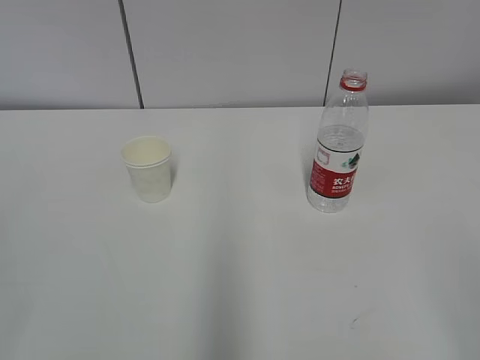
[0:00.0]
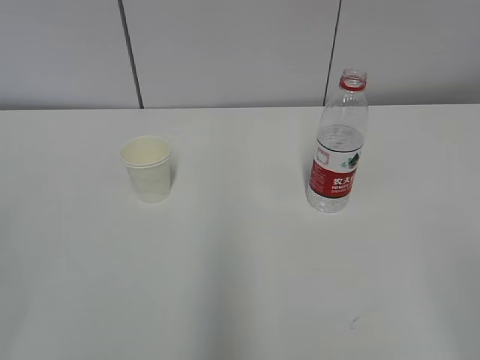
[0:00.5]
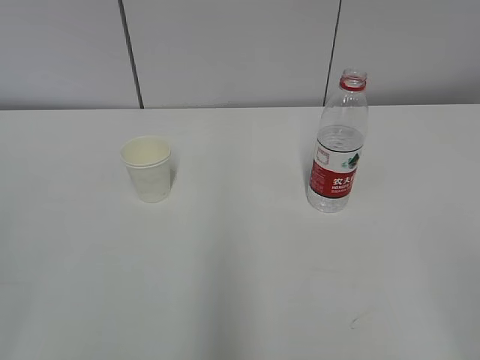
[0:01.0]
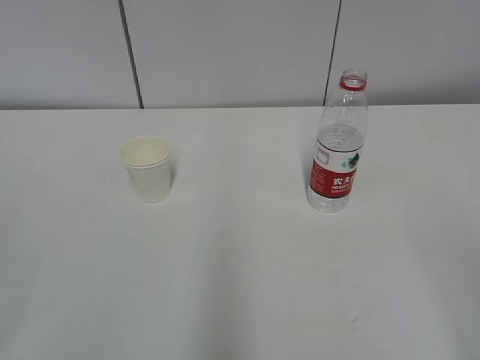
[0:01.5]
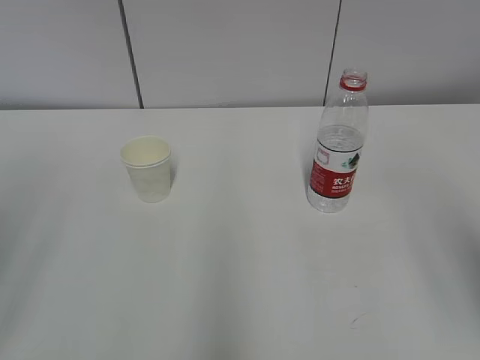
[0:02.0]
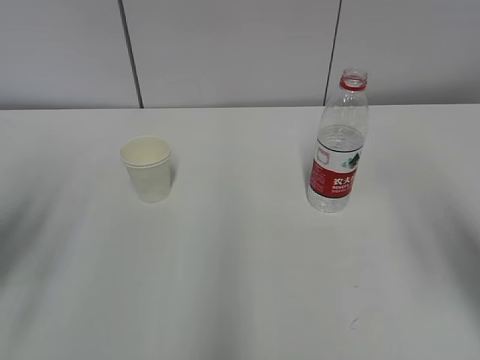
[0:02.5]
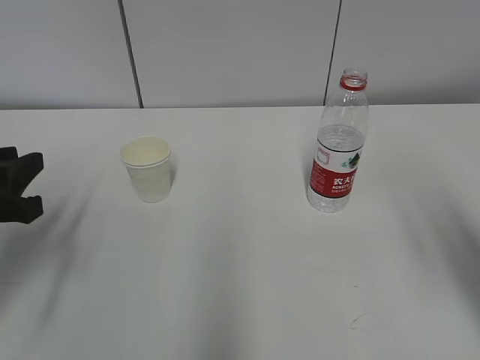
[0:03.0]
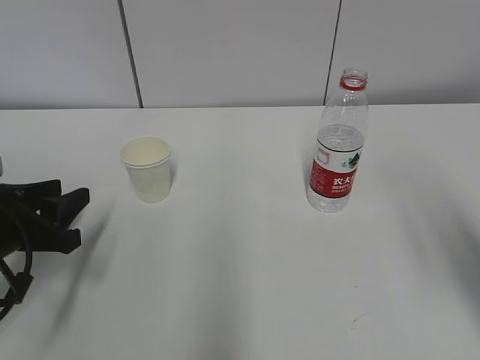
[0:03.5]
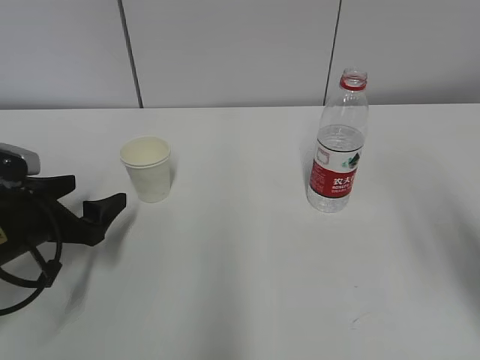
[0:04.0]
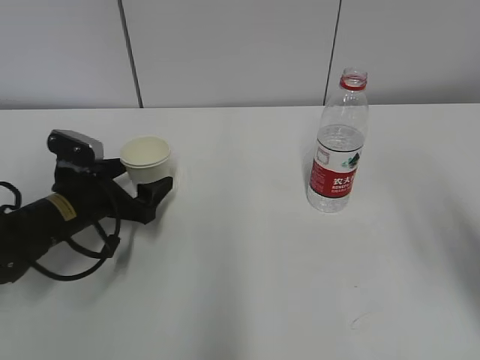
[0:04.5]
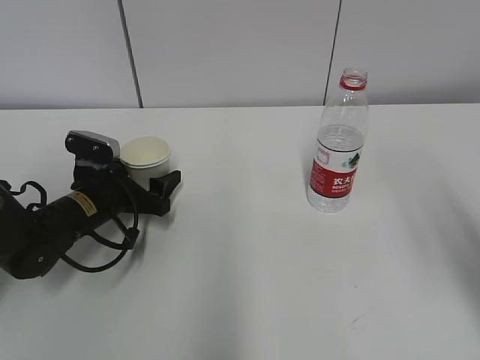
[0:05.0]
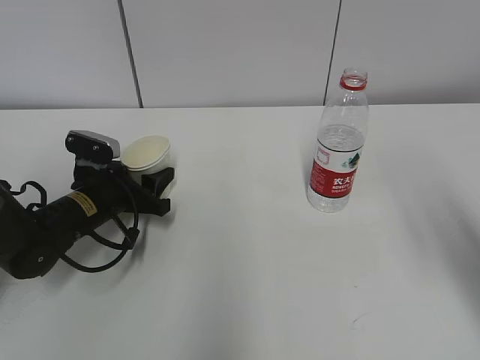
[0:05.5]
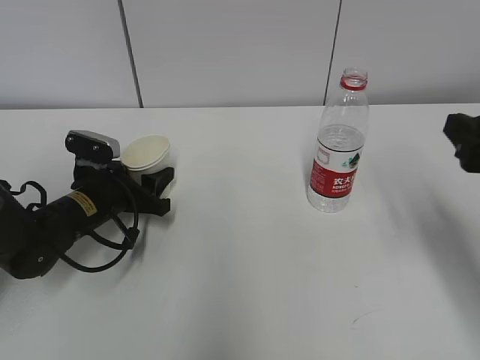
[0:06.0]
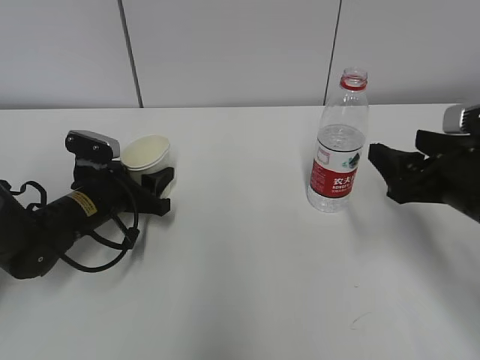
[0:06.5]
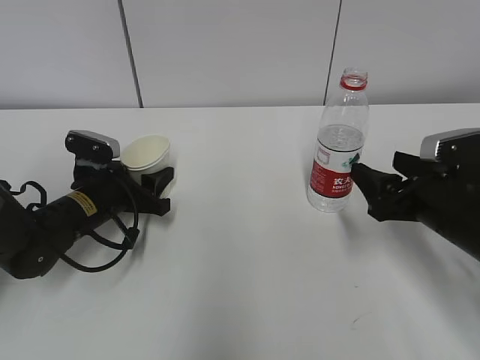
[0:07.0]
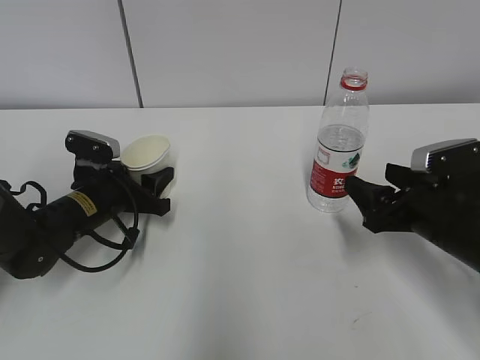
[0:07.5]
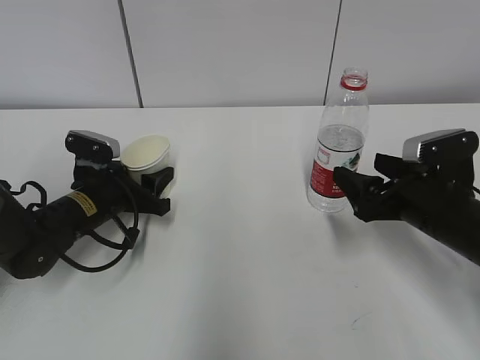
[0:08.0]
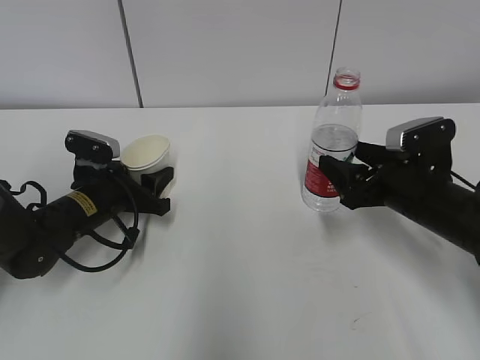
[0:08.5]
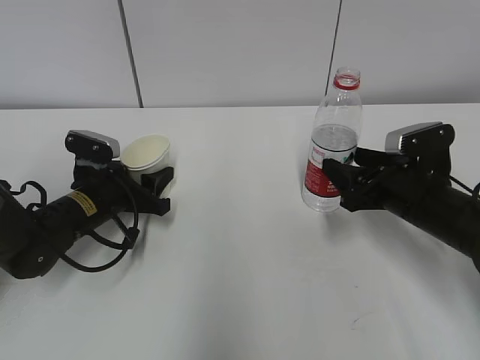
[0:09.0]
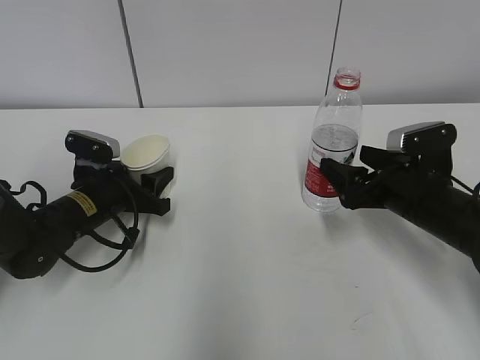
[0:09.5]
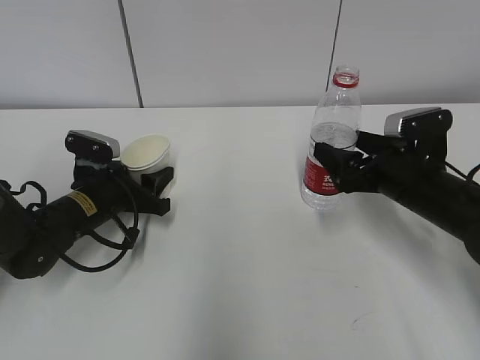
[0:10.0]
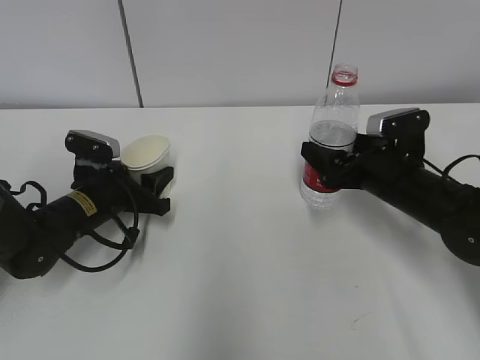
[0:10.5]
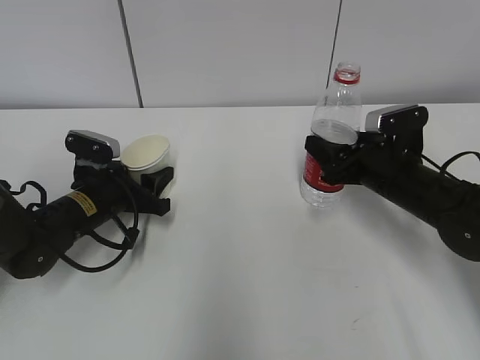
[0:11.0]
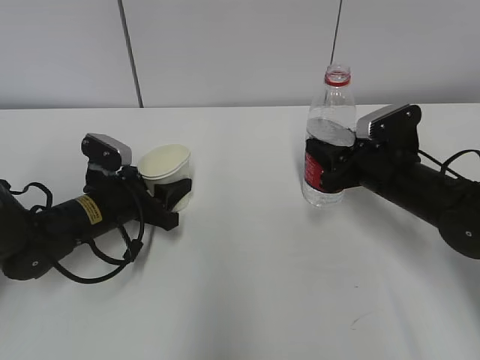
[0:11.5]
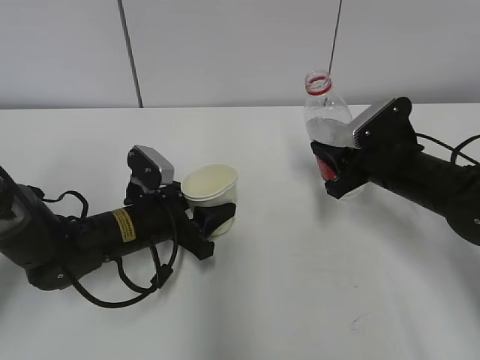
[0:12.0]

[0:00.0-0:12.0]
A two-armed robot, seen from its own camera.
Step, 0:00.0 to 0:09.0: Grab the paper cup with the left hand.
0:02.0 to 0:04.0: The left gripper is displaced downward and forward by approximately 30 cm, and opens up.
0:04.0 to 0:06.0: The right gripper travels forward and downward by about 10 cm. The left gripper moves forward and to the right, some 10 cm, and closes.
0:06.0 to 0:08.0: The right gripper is displaced downward and forward by some 15 cm.
0:08.0 to 0:10.0: The grippers move only a little.
0:10.0 to 0:12.0: The right gripper closes up. The left gripper heads to the right, covering some 5 cm.

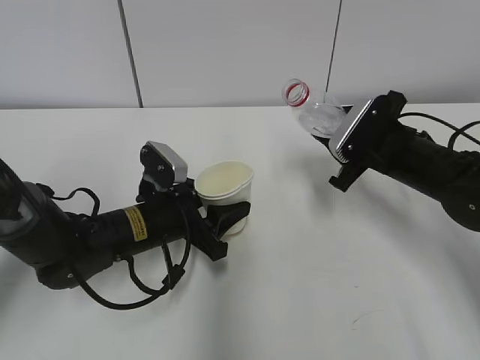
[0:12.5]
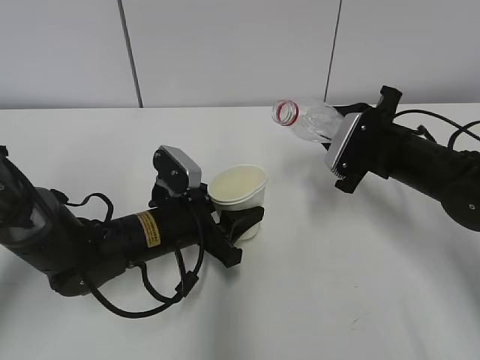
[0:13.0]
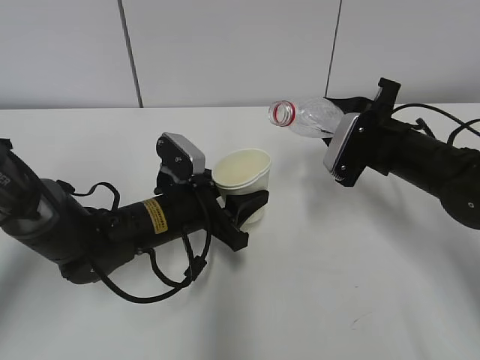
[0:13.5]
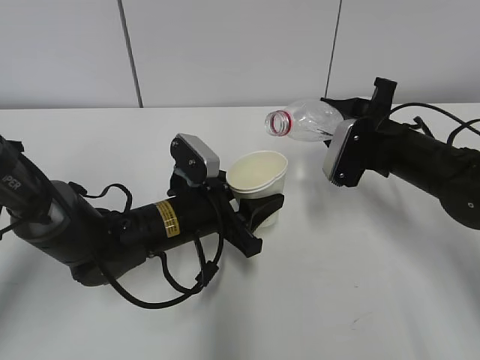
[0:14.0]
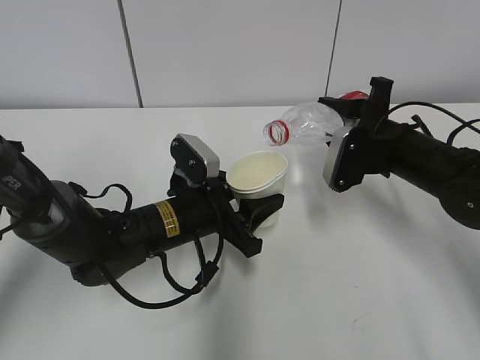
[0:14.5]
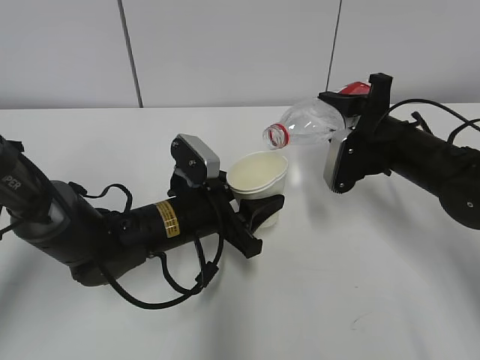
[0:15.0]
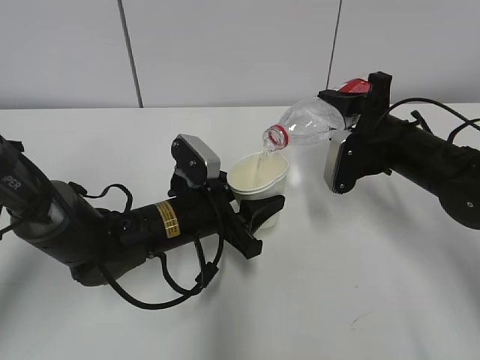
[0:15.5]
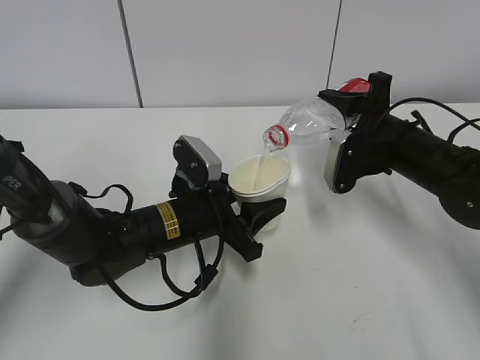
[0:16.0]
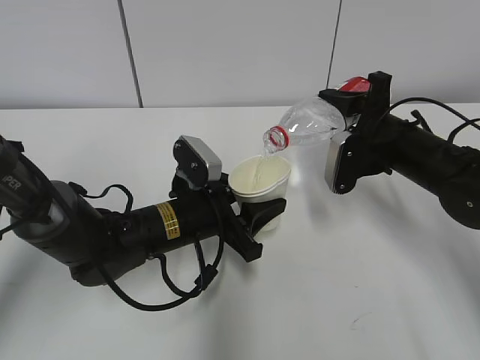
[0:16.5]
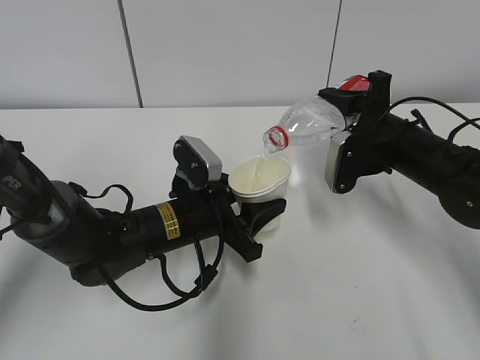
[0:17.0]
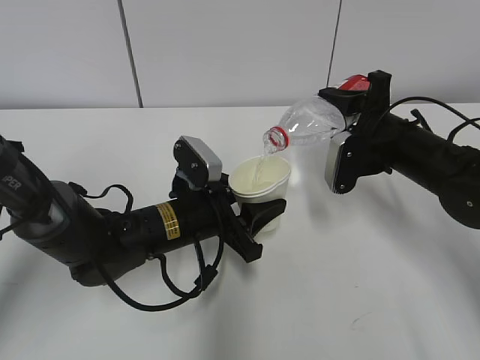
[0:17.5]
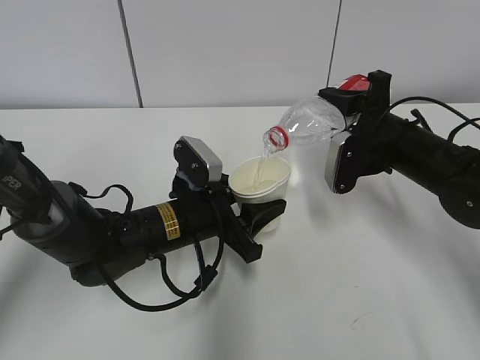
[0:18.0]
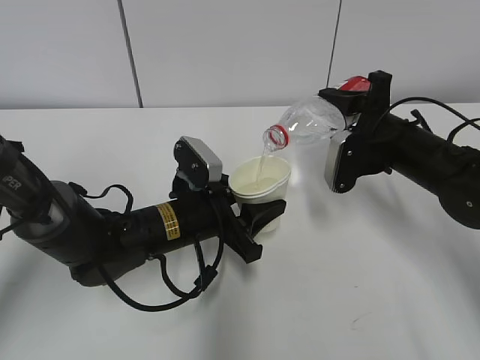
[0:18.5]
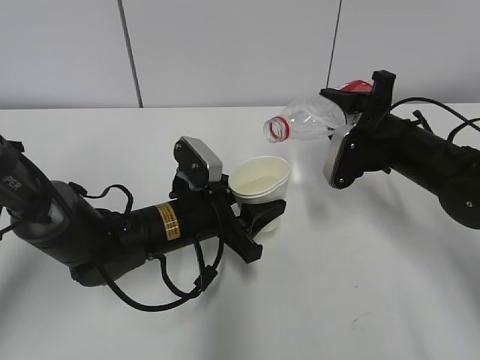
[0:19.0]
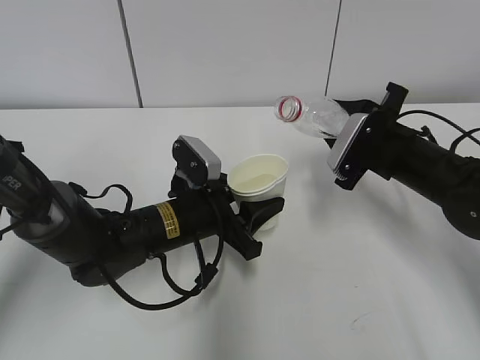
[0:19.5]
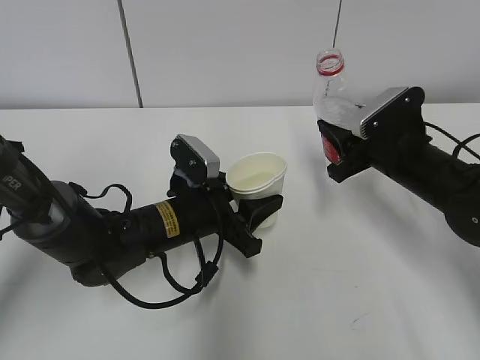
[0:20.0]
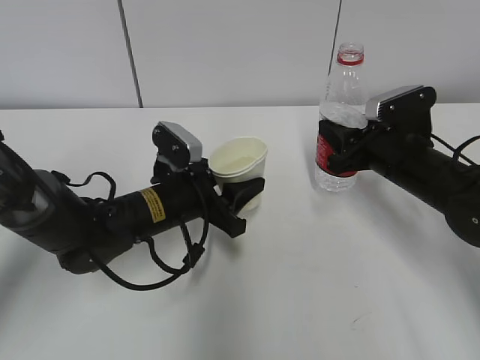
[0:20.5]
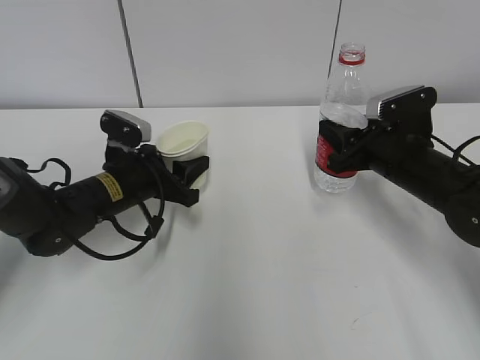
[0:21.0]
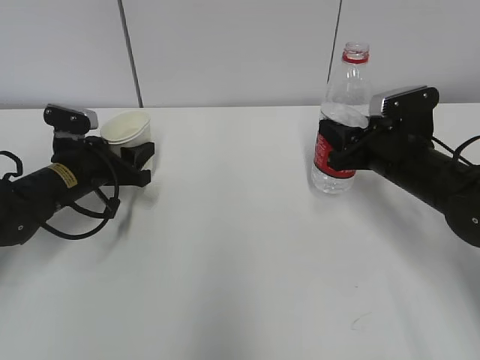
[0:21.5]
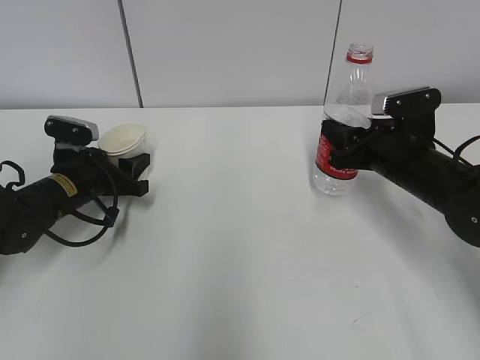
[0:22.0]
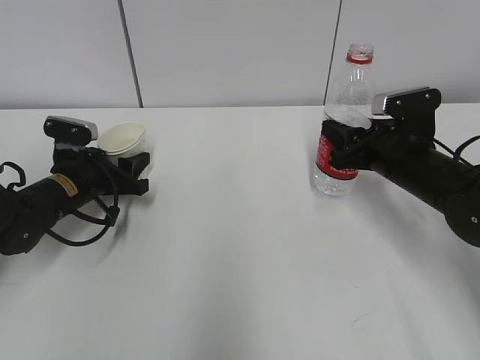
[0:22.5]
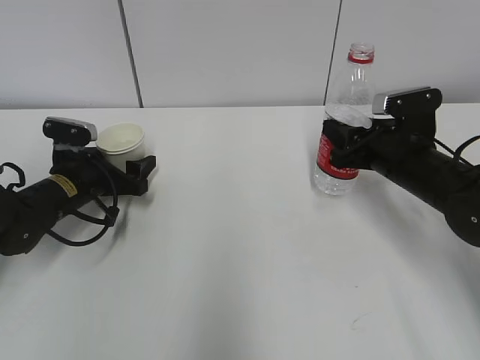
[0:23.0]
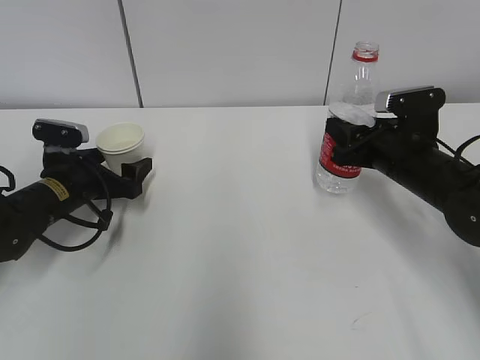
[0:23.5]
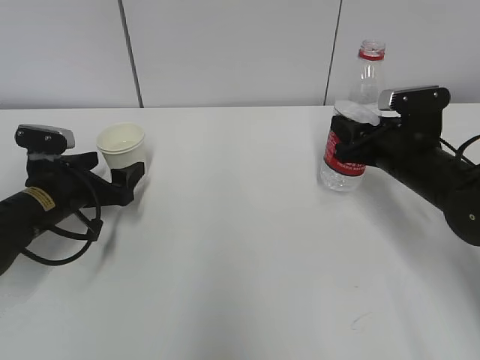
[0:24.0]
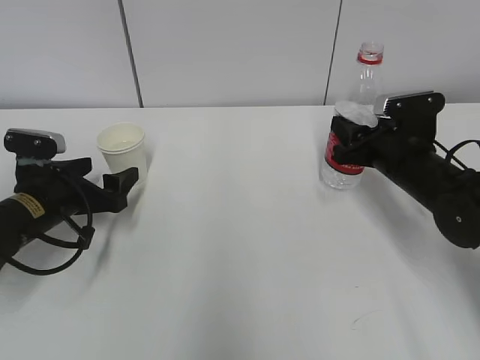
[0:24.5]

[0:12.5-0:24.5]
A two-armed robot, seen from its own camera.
Step, 0:12.5 to 0:15.5: Fill water with the left hand.
Step, 0:12.5 to 0:15.5: Pour water with the right hand.
Step, 0:17.0 to 0:19.0: Place the paper cup with the left hand.
0:14.5 to 0:16.5: The grippers make only small movements.
0:16.5 to 0:18.5: Both grippers stay put.
0:20.5 to 0:22.5: The left gripper moves to the left and forward, some 15 cm.
0:22.5 to 0:24.5: The left gripper travels backward by approximately 5 cm, and opens.

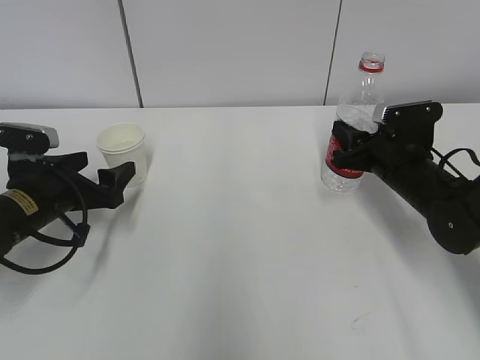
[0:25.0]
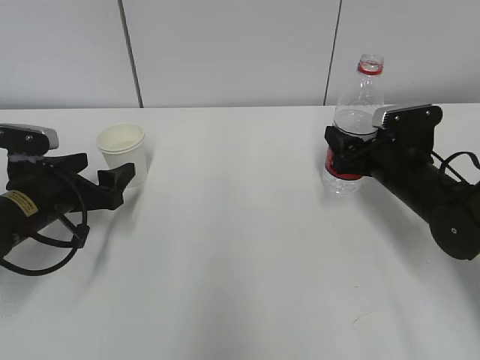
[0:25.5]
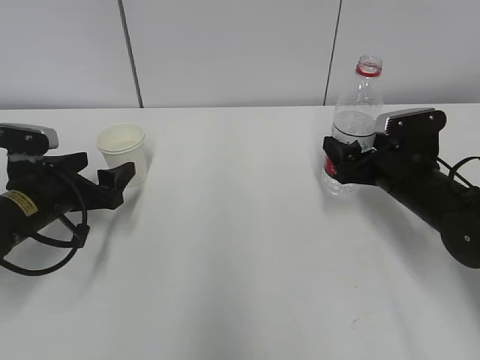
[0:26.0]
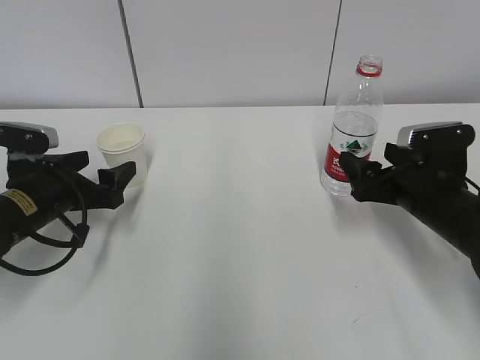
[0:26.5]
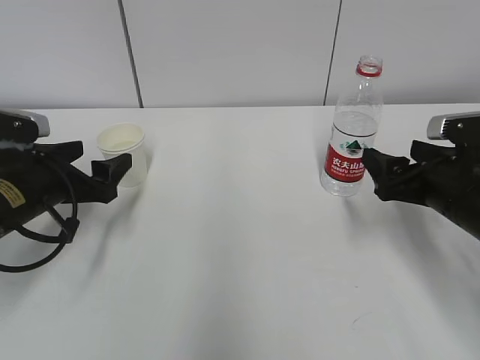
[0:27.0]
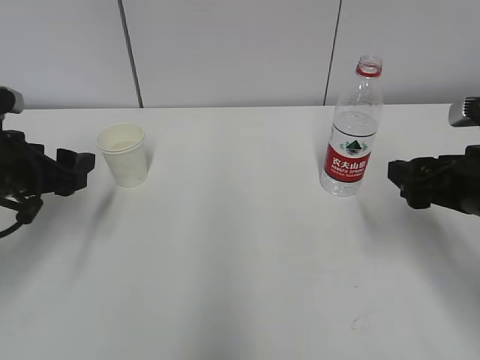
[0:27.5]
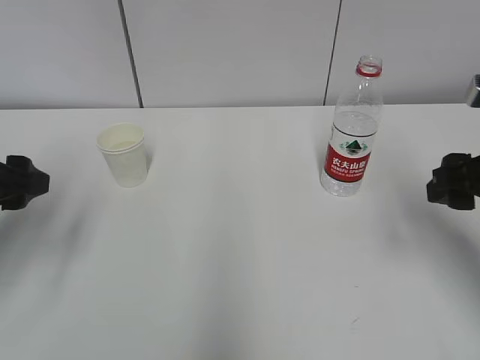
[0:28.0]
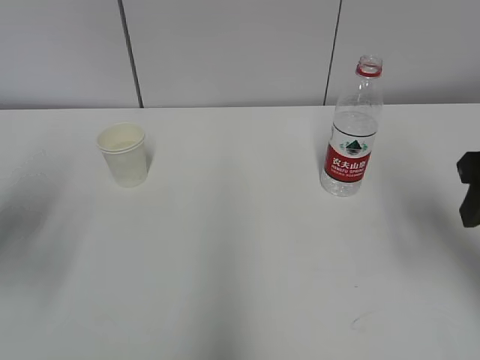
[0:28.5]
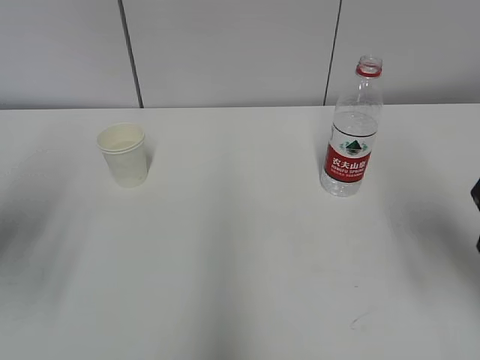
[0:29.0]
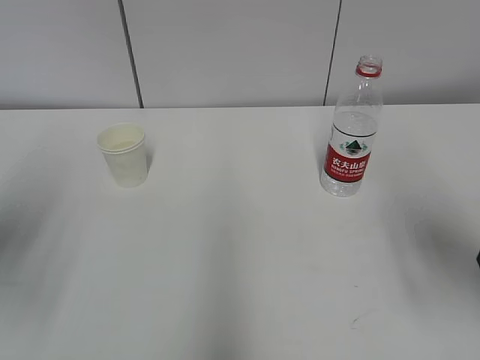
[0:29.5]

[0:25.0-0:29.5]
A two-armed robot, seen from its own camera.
0:25.0 to 0:27.0: The right gripper heads backward, covering some 10 cm, and opens its fingers.
0:27.0 to 0:29.5: Both grippers travel together upward and backward, about 20 cm. The right gripper closes.
